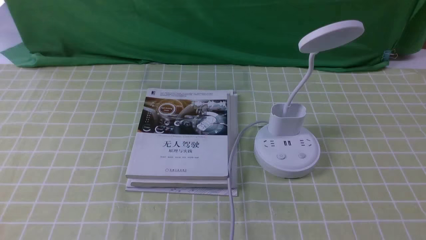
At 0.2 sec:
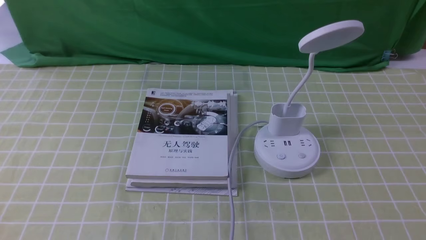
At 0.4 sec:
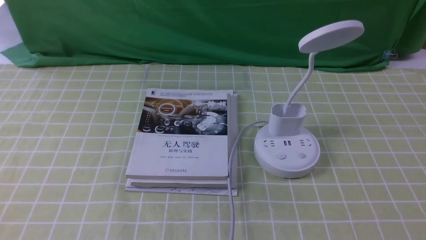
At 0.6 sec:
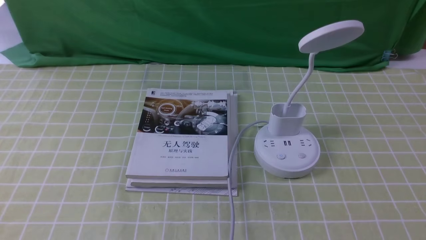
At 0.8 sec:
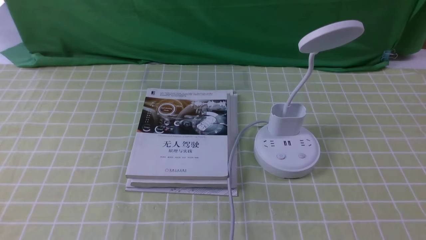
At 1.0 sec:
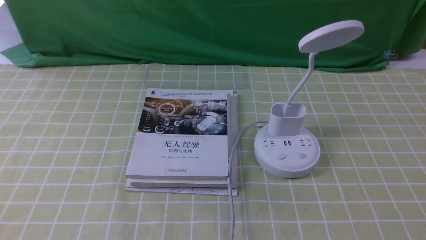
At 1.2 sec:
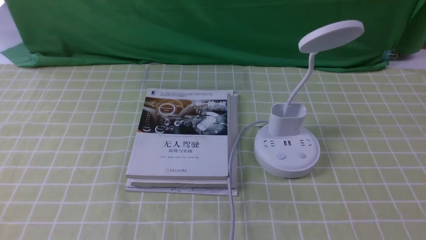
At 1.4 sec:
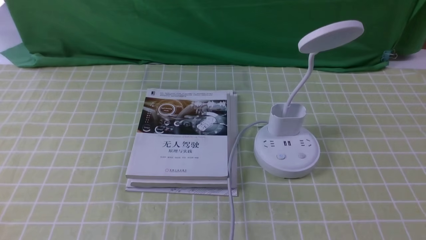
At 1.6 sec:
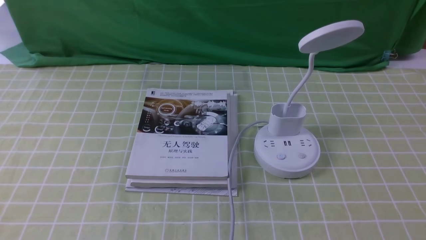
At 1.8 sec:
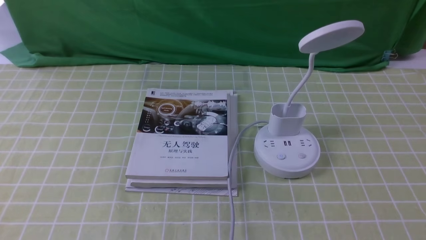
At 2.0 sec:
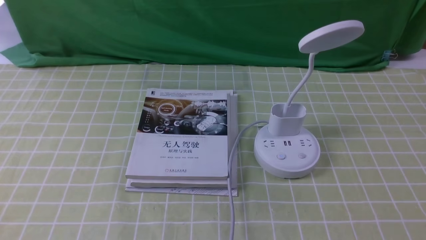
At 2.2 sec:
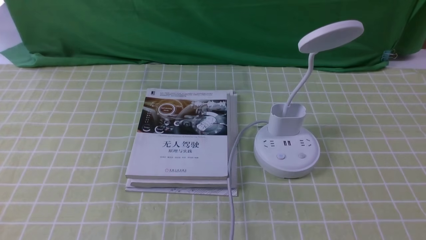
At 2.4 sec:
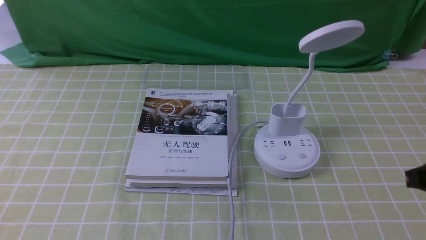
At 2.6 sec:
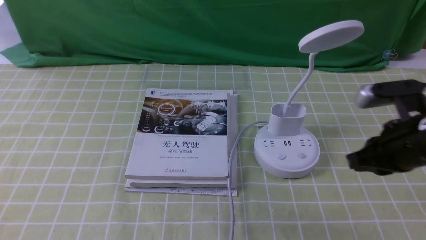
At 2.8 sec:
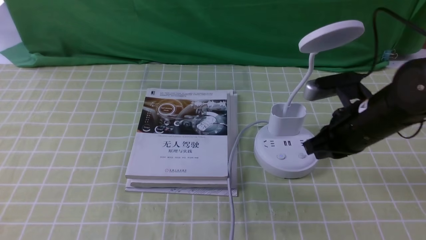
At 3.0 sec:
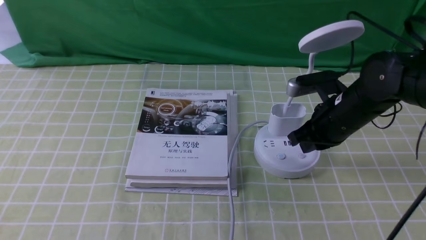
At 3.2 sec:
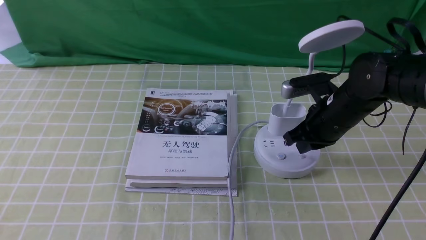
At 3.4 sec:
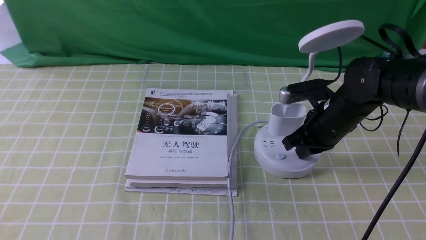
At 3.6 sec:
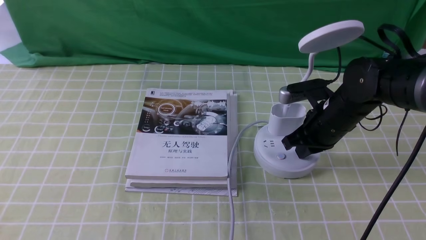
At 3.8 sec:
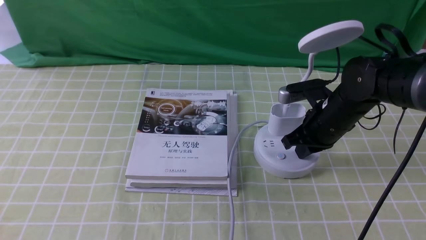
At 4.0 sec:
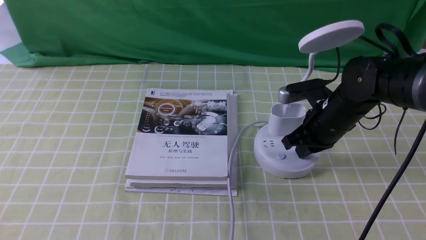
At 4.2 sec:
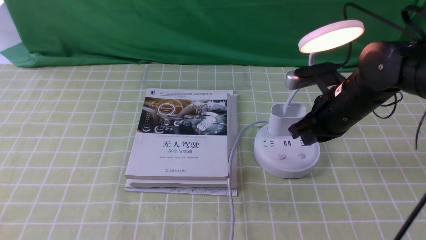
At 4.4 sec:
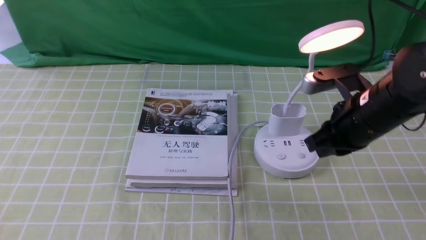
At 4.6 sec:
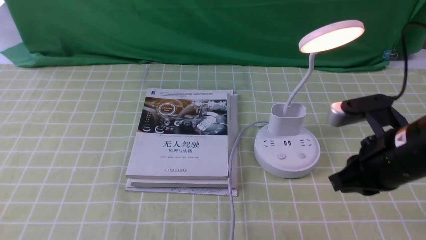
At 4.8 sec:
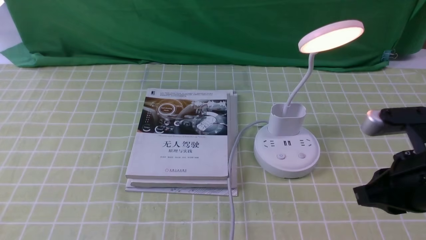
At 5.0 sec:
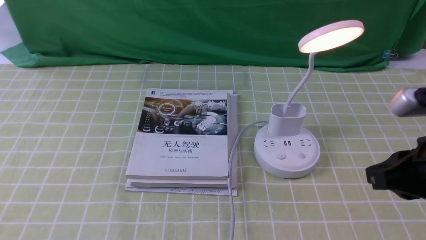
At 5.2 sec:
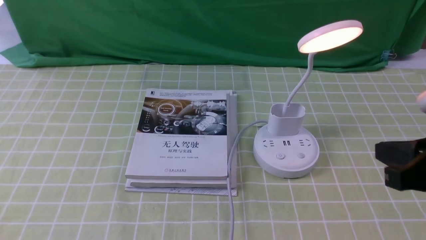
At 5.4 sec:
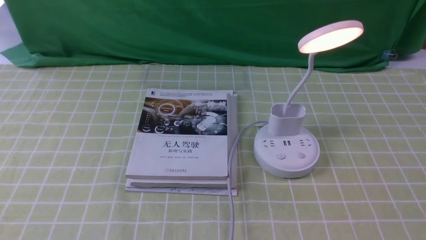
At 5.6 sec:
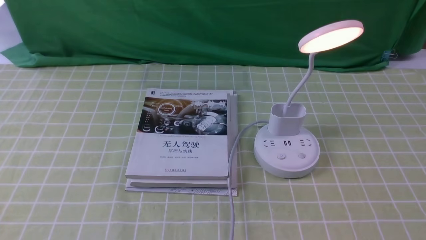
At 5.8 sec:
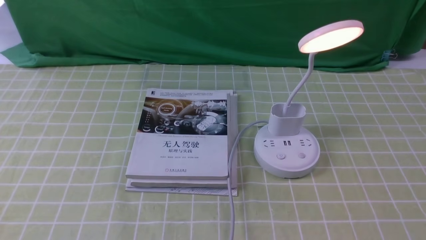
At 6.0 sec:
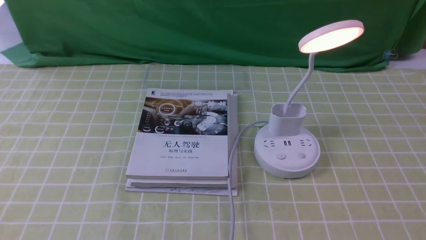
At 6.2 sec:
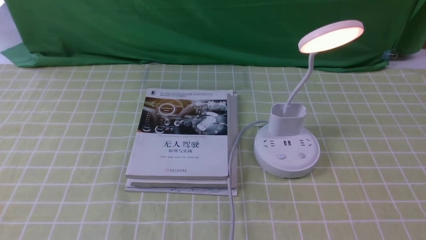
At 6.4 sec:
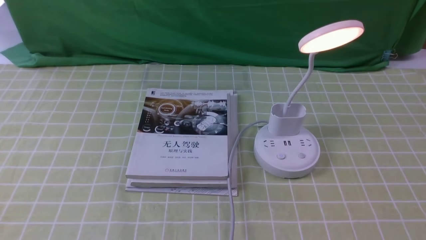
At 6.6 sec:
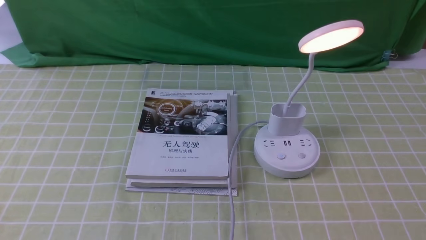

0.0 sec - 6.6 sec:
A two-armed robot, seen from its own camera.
Step, 0.0 sec - 4.2 sec: use the right arm to press the button switch on the lamp holder.
1.6 sec - 3.2 sec: The right gripper goes approximately 35 cm forward and to the left, and closes its fingers.
3.2 sec - 5.0 sec: The right gripper moves backward and upward, some 20 cm.
5.0 sec - 6.6 sec: The right gripper is displaced backward, downward and to the right by approximately 15 cm.
